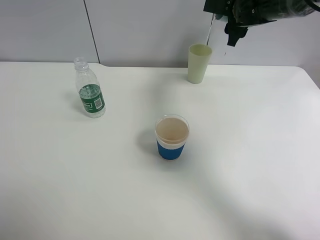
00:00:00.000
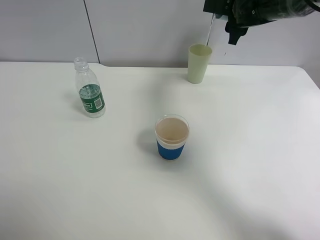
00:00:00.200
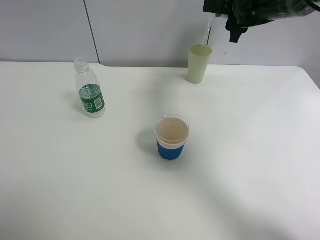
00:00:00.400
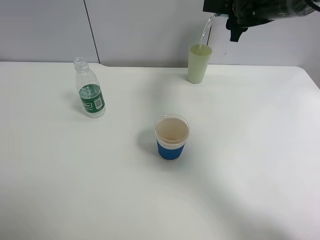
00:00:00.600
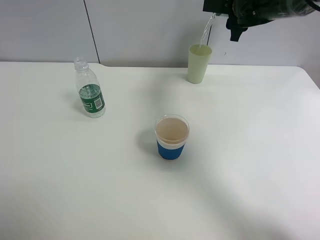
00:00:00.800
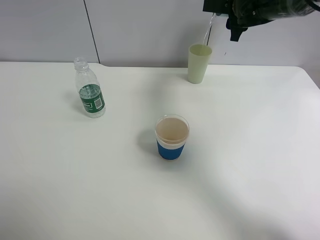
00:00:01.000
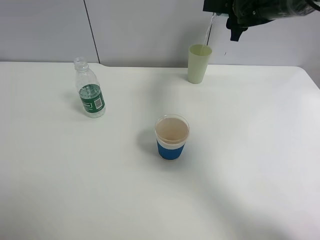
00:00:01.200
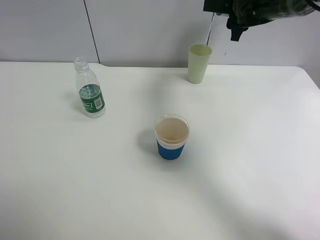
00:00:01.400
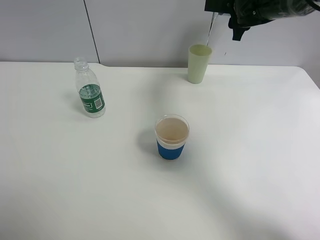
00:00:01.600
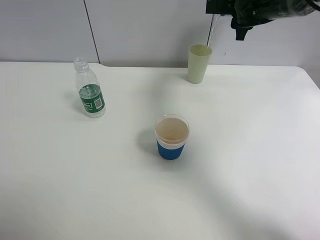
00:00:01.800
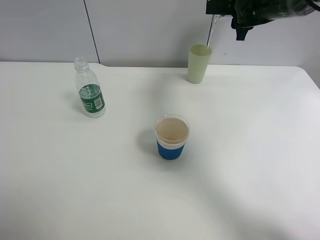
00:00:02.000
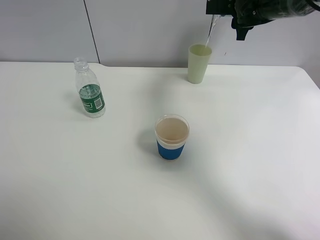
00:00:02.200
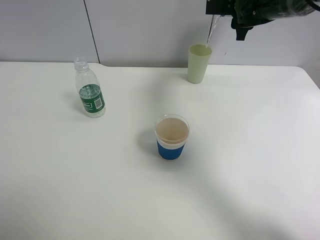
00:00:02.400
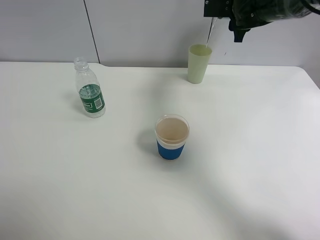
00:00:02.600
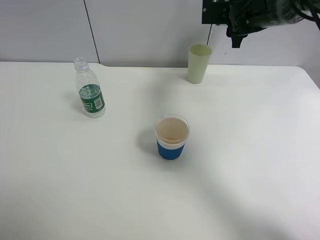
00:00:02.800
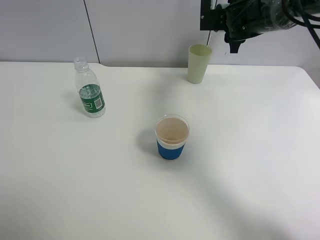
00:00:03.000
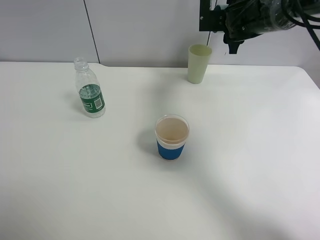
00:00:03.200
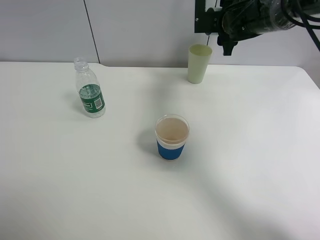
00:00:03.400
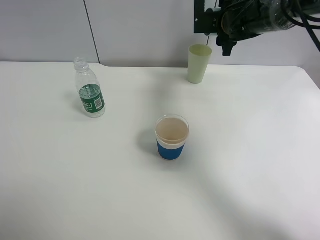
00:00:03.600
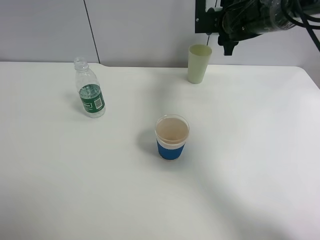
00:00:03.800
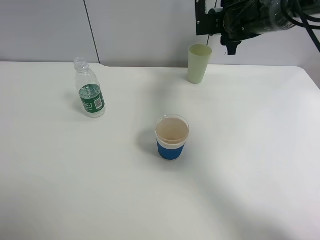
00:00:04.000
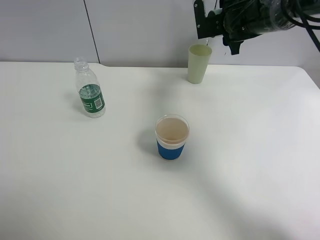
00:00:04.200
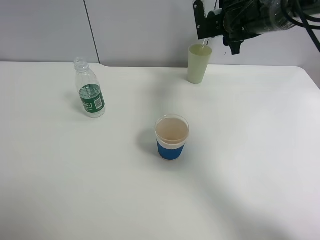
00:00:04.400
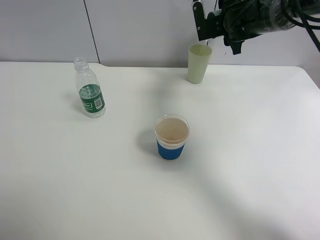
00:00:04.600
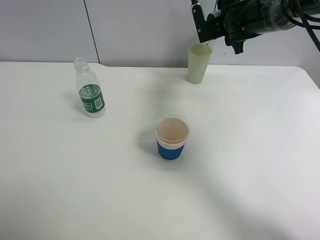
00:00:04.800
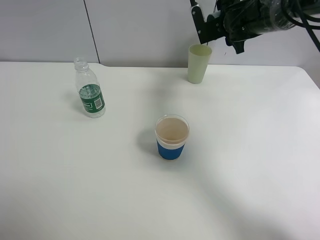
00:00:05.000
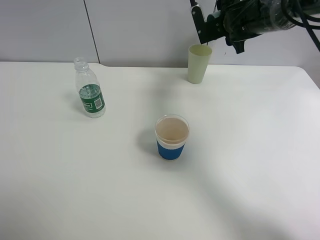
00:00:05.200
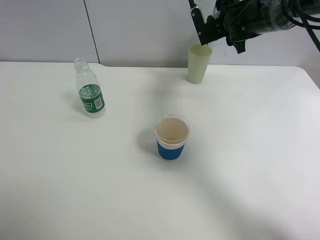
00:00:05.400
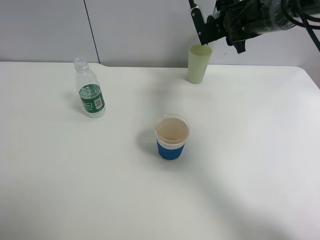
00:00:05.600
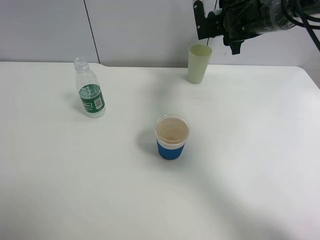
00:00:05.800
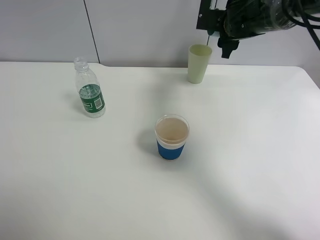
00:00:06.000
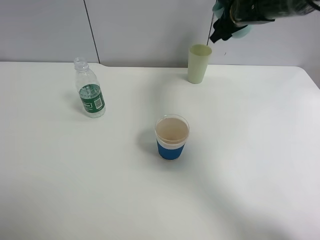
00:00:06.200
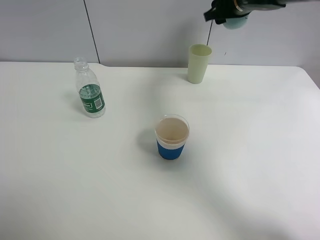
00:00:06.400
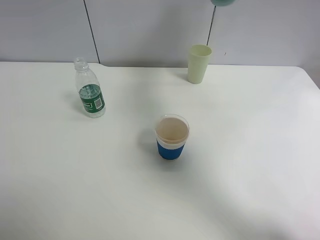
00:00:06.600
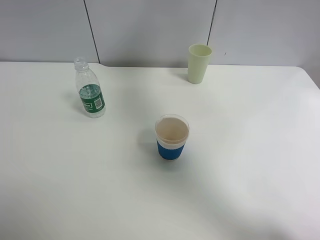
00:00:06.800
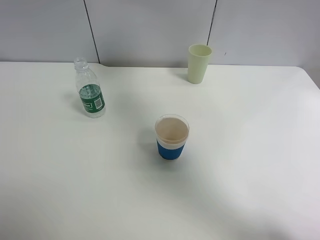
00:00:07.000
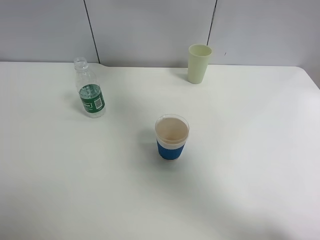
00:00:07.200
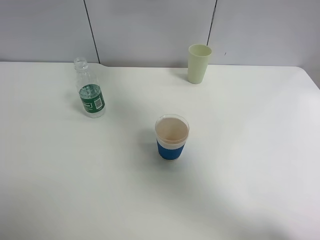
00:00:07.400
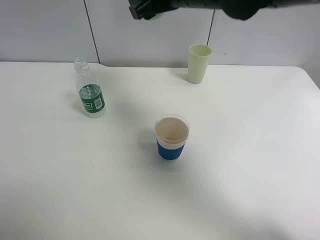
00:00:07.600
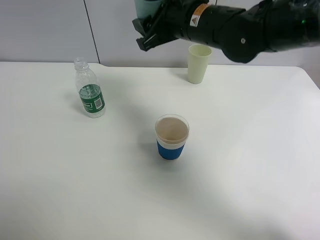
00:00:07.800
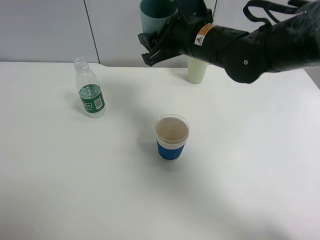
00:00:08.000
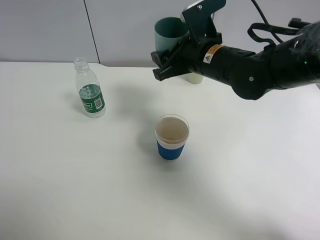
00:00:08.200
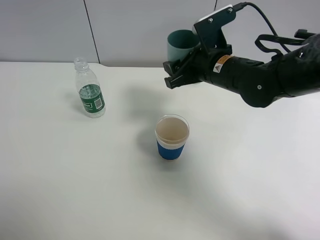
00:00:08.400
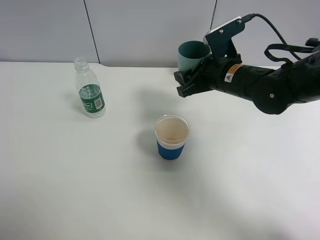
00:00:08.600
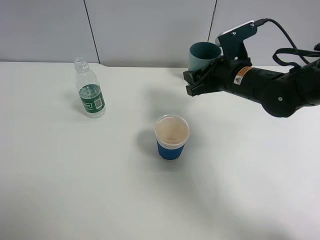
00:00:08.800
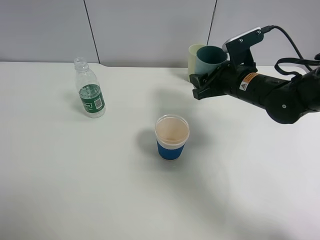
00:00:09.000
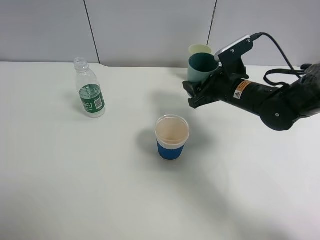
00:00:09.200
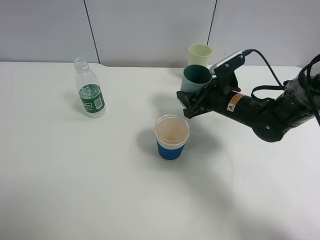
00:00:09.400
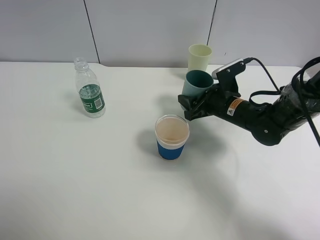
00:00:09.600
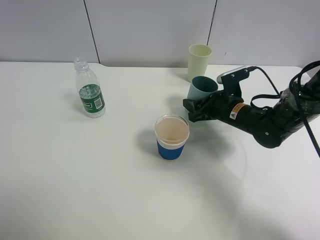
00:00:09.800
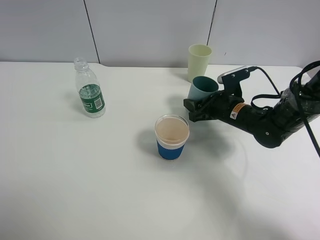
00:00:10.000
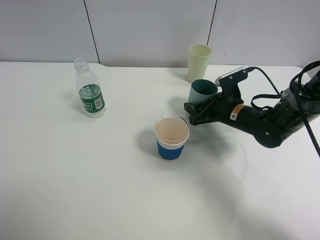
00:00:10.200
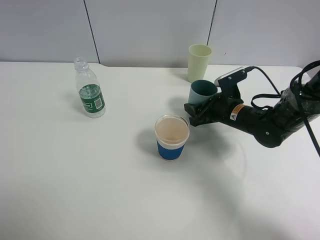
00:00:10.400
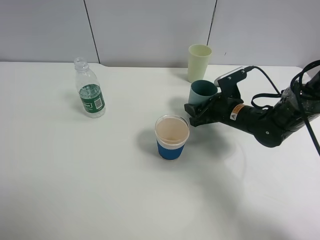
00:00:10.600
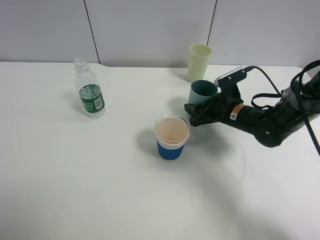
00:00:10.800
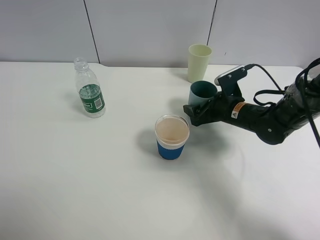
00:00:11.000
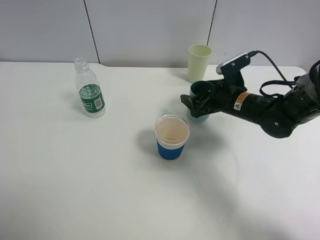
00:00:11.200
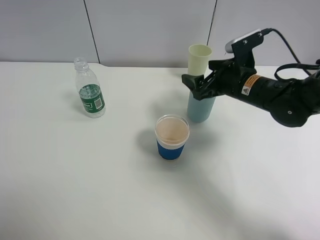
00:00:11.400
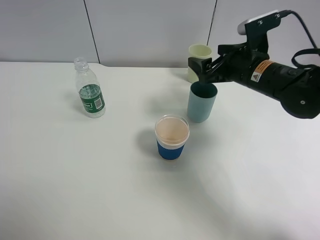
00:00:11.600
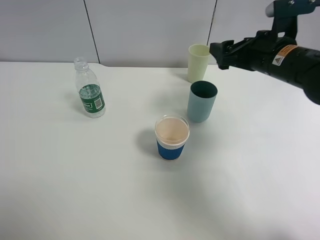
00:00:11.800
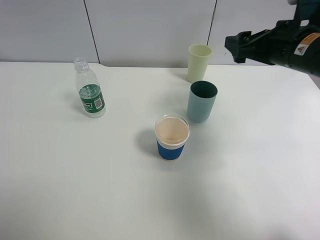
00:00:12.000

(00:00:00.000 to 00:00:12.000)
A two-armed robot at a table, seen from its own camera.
Task of the whole recording: use a clamp to hold the bottle of the drink, pour the beverage into a random cup, then clamp the cup containing the drink and pour the drink into another random cup.
Step, 00:00:00.000 - 00:00:06.000: Pour water into the green plastic cup with right gripper.
Step, 00:00:06.200 - 00:00:11.000: Place the blue plastic cup on the table with right gripper.
00:00:01.600 - 00:00:04.400: The grippers stay close to where they were, moving slightly.
00:00:06.000 - 00:00:07.600: The right gripper is displaced to the left, backward and upward by some 20 cm.
00:00:07.600 - 00:00:09.000: The right gripper moves downward and to the right, about 20 cm.
00:00:09.000 - 00:00:10.400: The right gripper moves downward, some 10 cm.
00:00:10.400 - 00:00:12.000: The right gripper travels upward by roughly 20 cm, and opens.

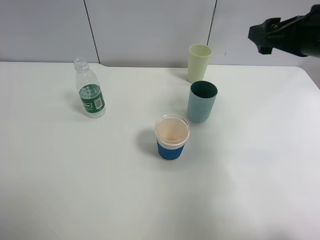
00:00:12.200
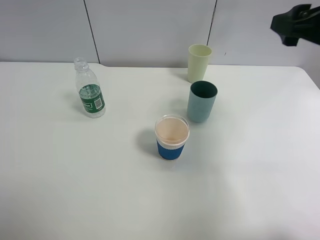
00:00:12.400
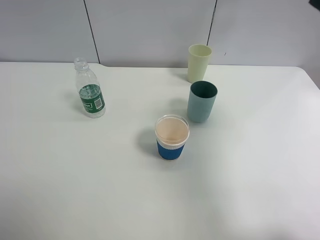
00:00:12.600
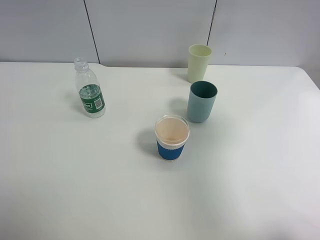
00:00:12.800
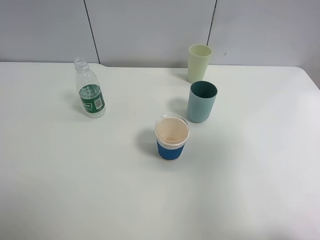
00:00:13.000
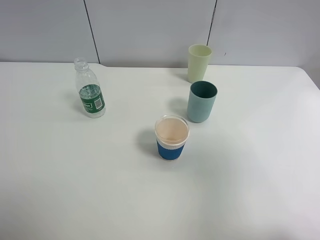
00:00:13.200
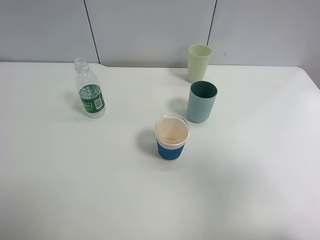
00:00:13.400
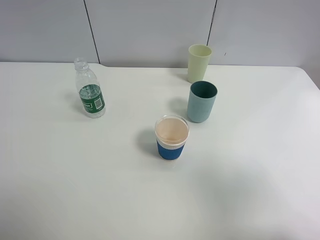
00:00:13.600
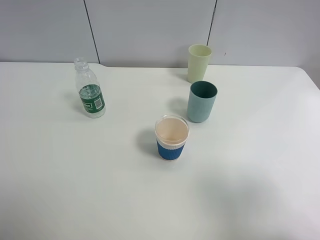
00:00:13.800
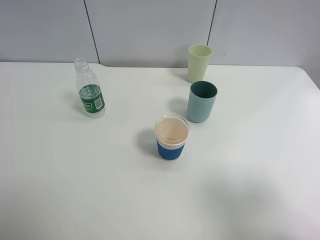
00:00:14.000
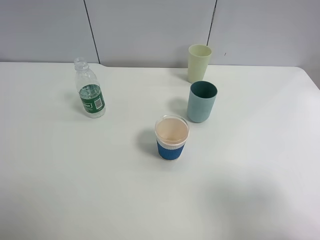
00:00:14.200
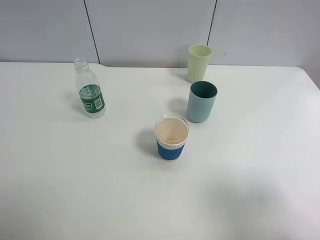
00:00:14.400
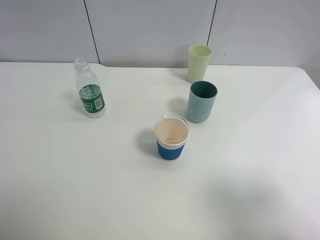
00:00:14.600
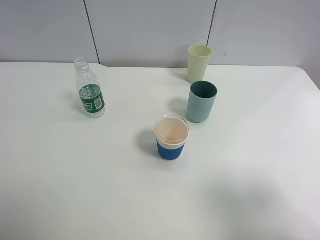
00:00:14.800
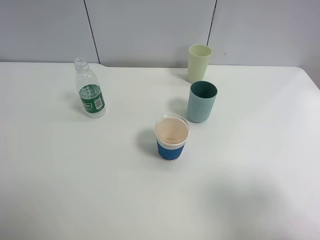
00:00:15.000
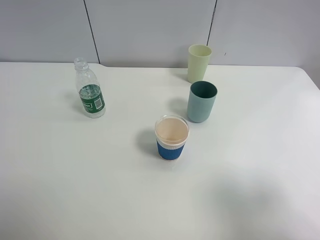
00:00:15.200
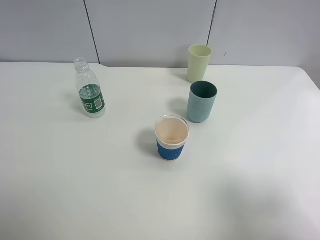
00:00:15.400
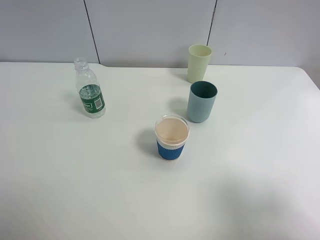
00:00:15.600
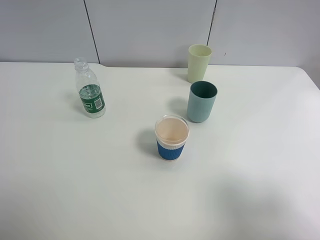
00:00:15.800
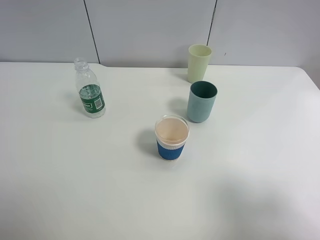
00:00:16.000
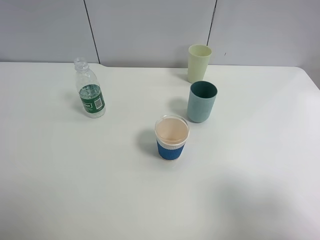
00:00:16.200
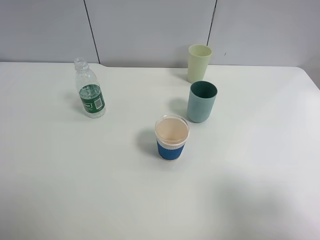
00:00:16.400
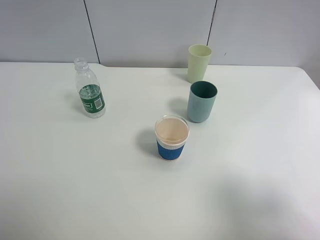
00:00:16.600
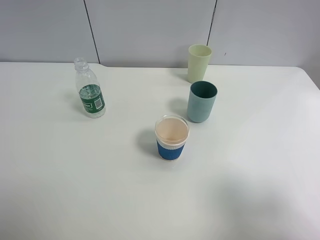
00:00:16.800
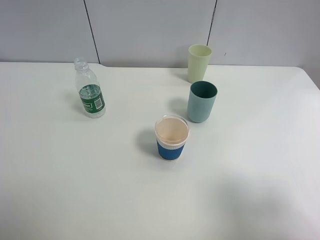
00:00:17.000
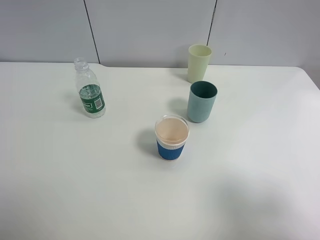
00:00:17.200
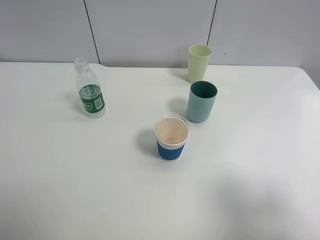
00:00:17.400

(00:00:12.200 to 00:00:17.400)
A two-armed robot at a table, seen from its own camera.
Task of the whole recording: use a clamp to hold the bottle of the drink, pour the beverage into a random cup, then clamp the cup containing the drink and pour the drink into another random cup.
00:00:12.200 - 00:00:14.000: The right gripper is displaced backward by approximately 25 cm.
00:00:15.600 - 00:00:17.400: The two grippers keep their place.
